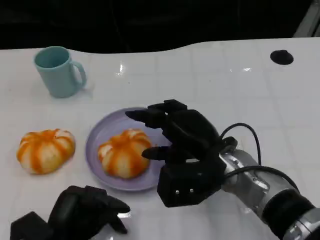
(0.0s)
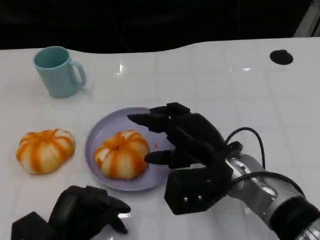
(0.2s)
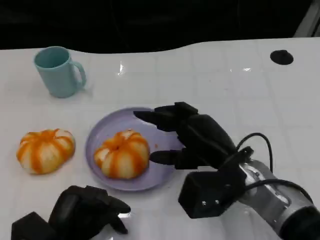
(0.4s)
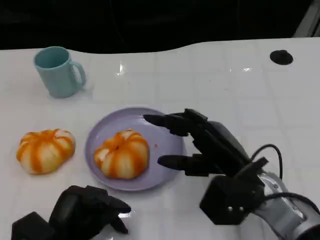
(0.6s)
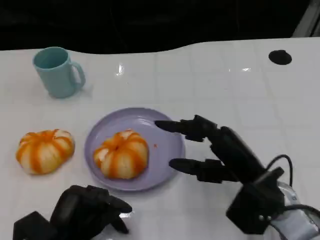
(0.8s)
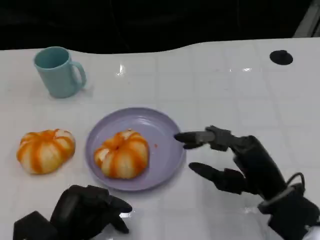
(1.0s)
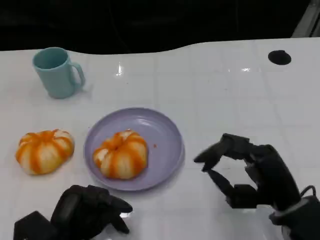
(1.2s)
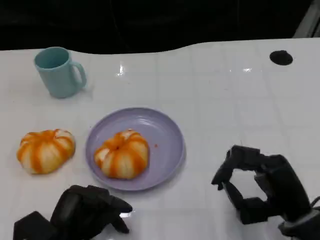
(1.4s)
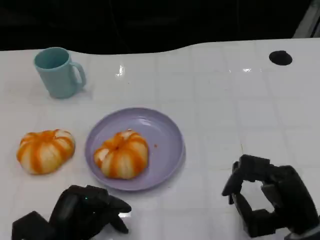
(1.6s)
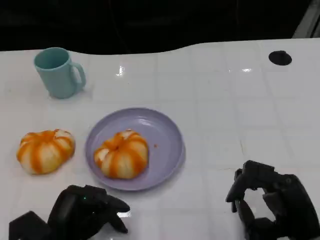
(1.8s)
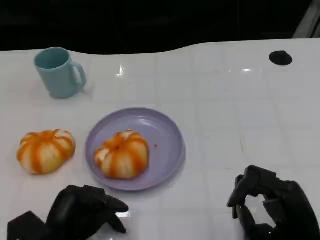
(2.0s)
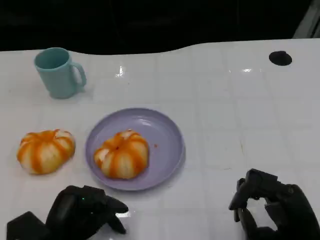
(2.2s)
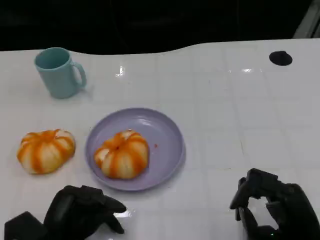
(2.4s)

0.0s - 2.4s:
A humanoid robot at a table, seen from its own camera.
Task of the whole recording: Grasp the bread from the table and place it into the plate.
0.0s - 1.2s: The right hand moves to the right and backward, some 10 cm.
1.2s - 2.4s: The right hand moves approximately 5 cm.
